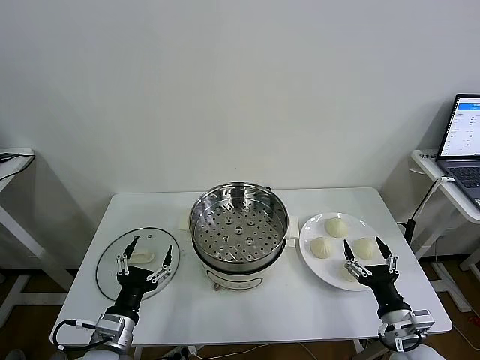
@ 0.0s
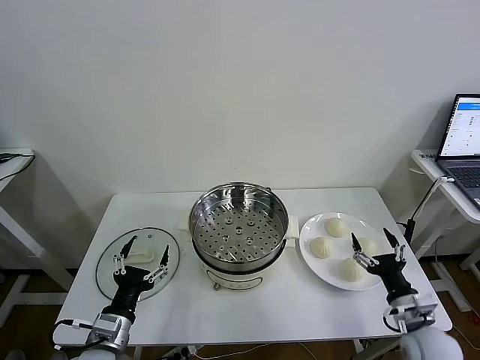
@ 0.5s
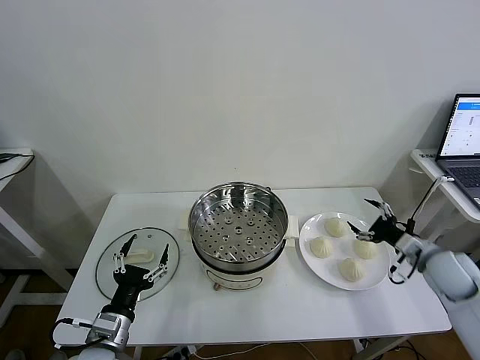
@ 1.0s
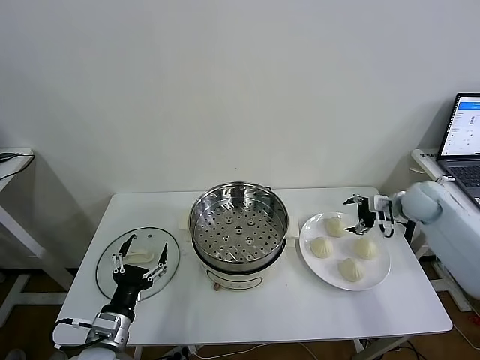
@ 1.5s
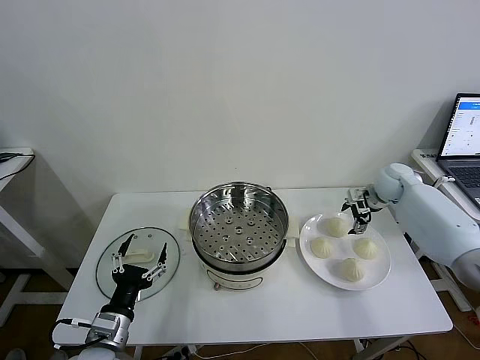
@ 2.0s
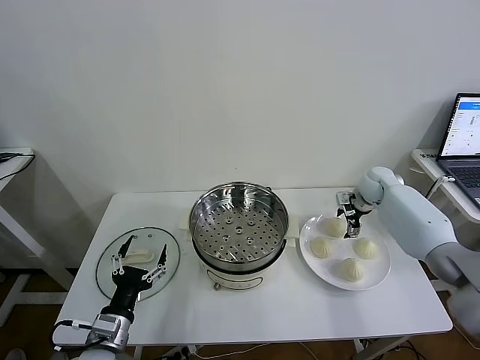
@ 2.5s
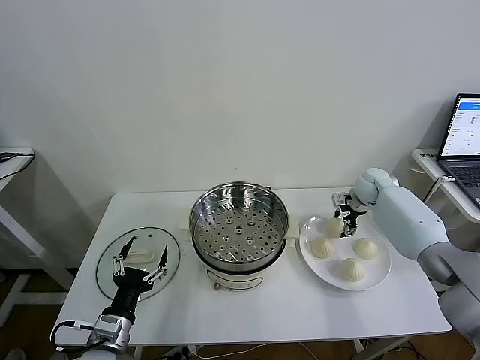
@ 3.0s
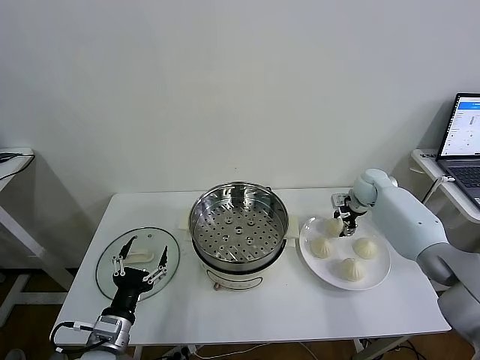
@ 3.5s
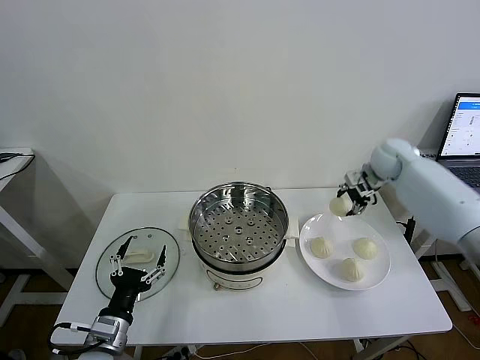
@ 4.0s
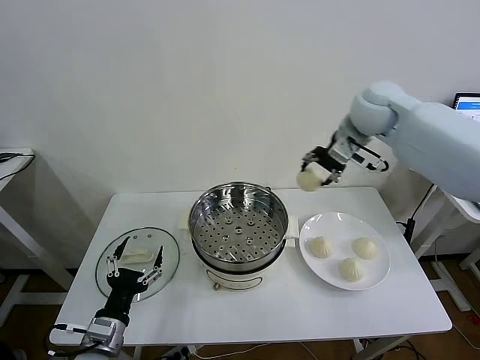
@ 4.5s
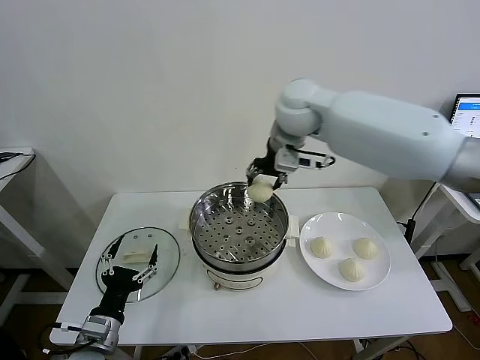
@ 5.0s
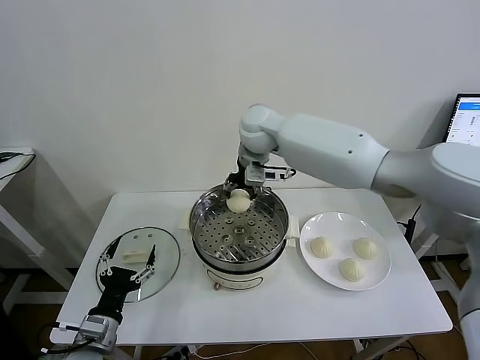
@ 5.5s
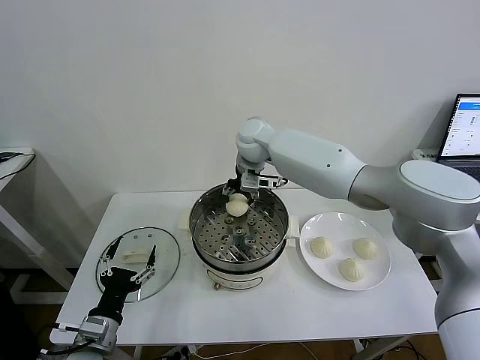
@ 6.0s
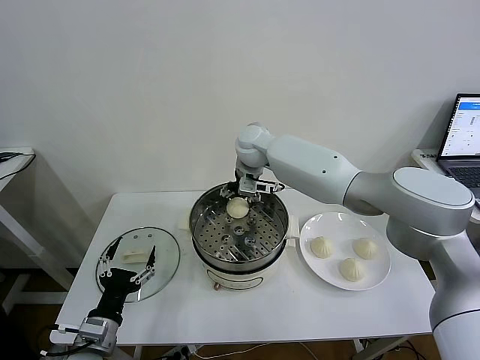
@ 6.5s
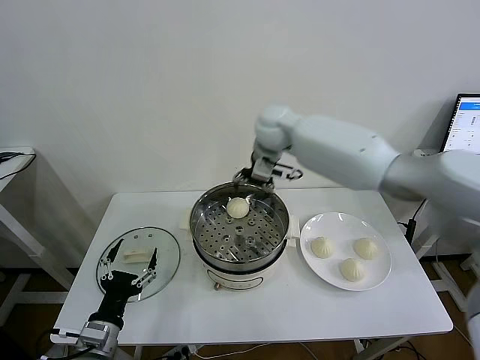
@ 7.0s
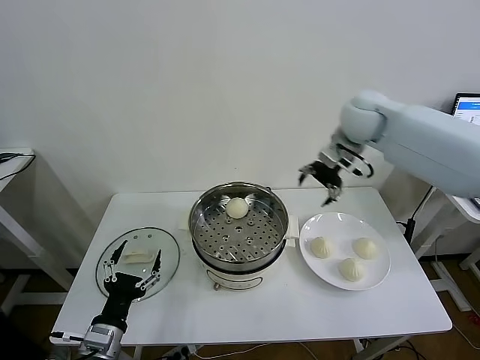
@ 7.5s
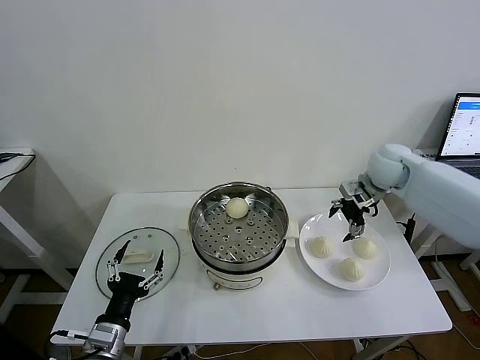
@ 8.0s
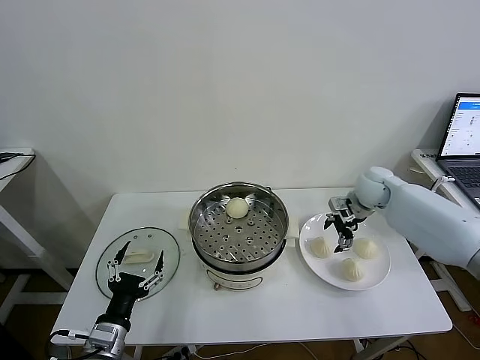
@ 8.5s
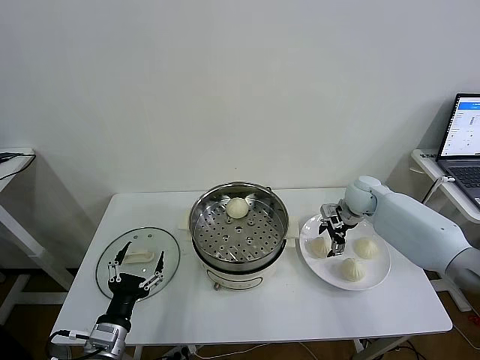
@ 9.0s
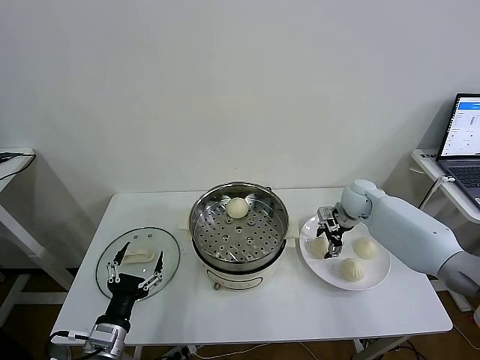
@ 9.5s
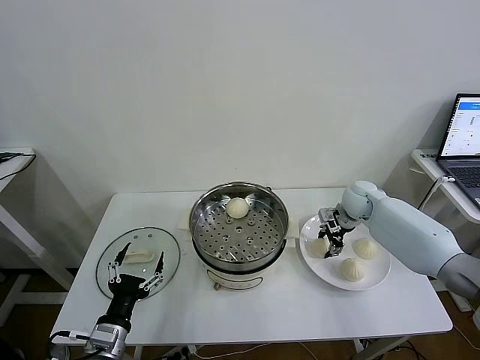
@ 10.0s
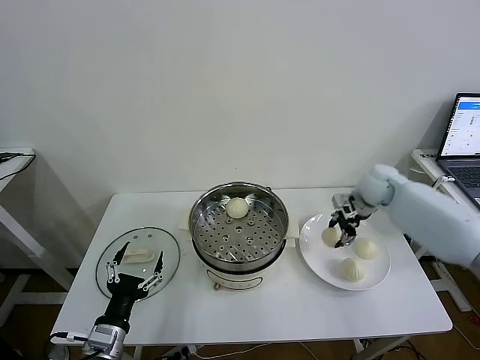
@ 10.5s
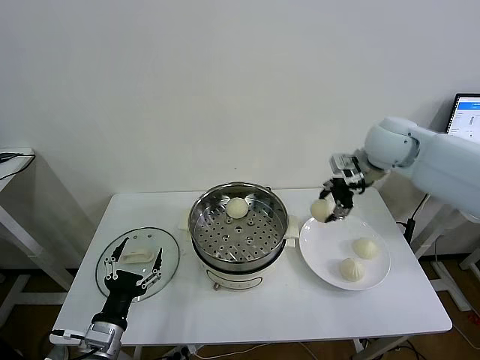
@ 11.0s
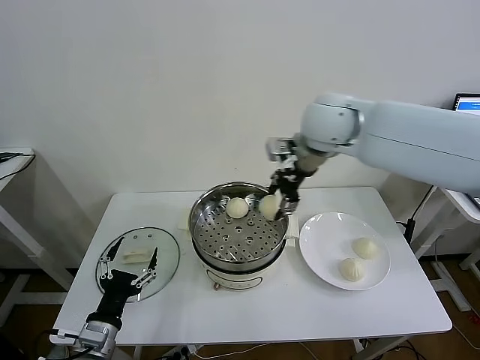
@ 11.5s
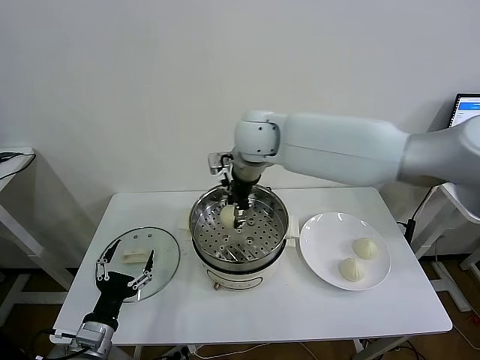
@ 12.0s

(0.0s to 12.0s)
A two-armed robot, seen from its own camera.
Task of the whole recording: take steamed baozi put them in steamer then cover it.
Step, 0.0s - 3.0s: Grasp the baozi in the plate with right gripper.
Step, 3.5s - 6.5s: Place the baozi on the steamer with right gripper.
Step, 7.0s - 9.5s: Grasp the baozi in the plate with right gripper.
2.0s - 4.0s: The right gripper heads upward, covering roughly 10 cm, and closes its fingers.
4.0s - 6.0s: The right gripper goes some 35 cm to the left.
6.0s - 8.0s: The right gripper is displaced to the right by some 30 cm, and opens its fingers.
8.0s - 10.0s: The right gripper shifts about 10 cm downward, and closes.
10.0s - 12.0s: The right gripper is displaced to the left and upward by roughly 35 cm.

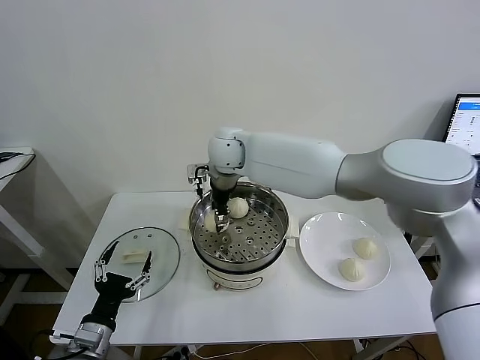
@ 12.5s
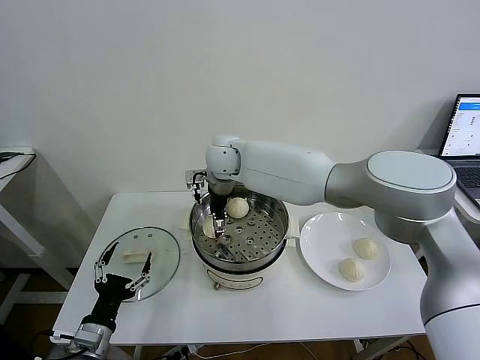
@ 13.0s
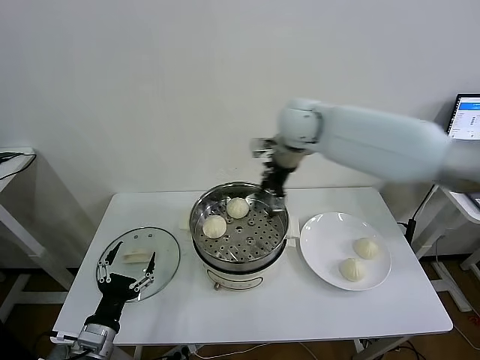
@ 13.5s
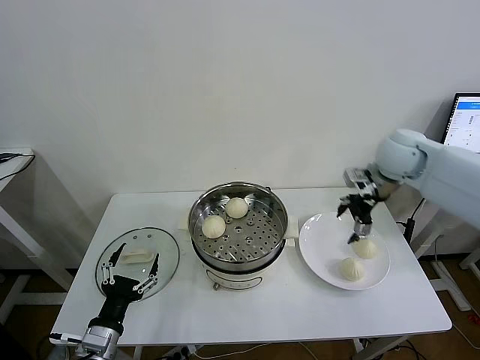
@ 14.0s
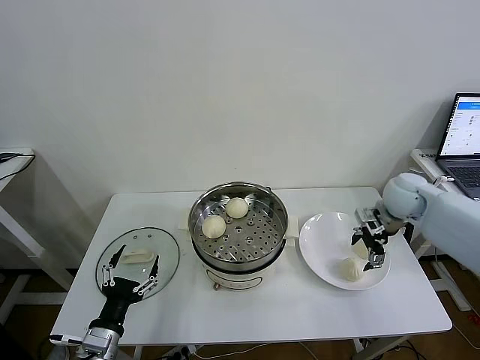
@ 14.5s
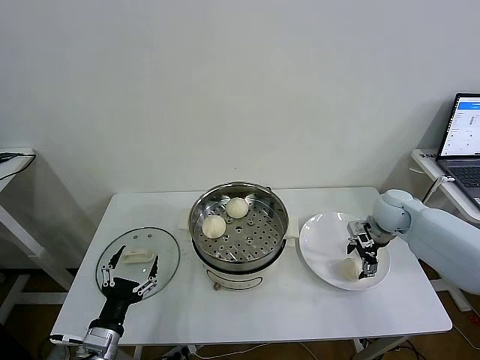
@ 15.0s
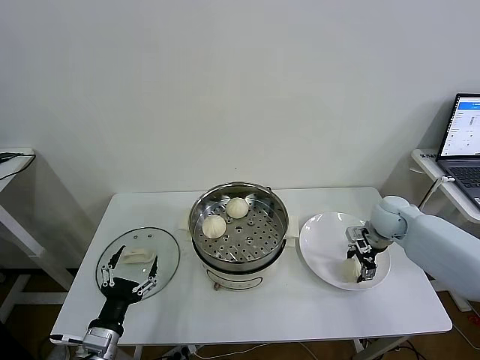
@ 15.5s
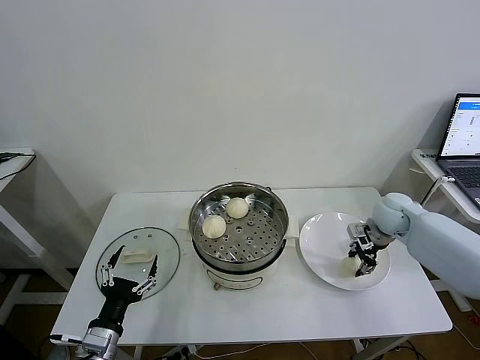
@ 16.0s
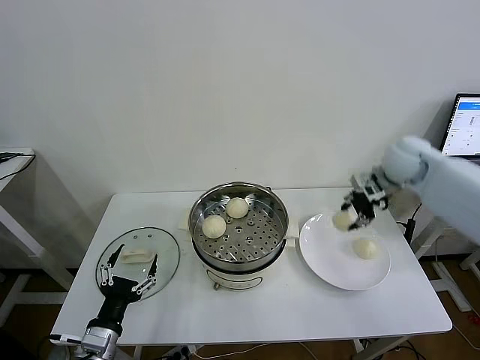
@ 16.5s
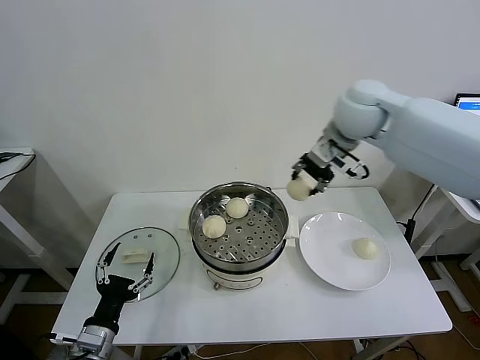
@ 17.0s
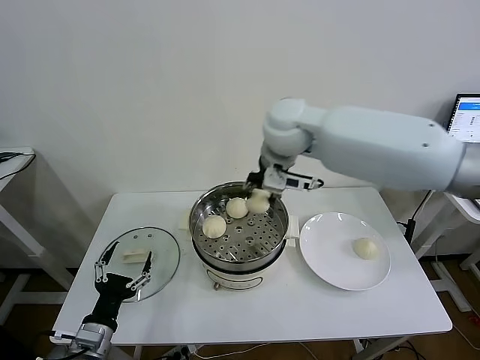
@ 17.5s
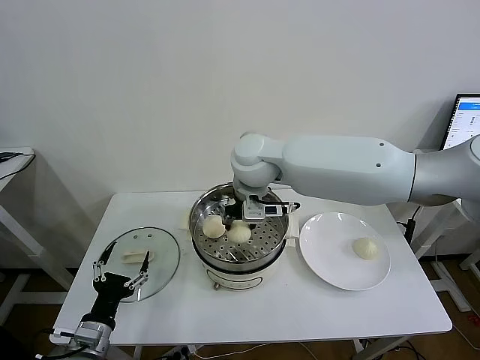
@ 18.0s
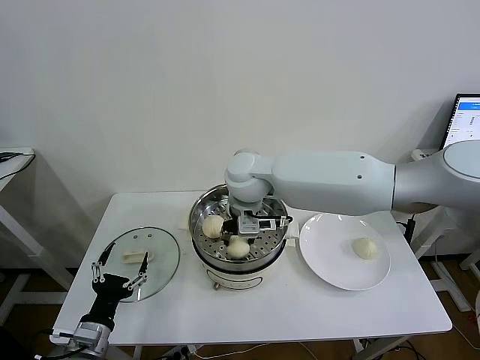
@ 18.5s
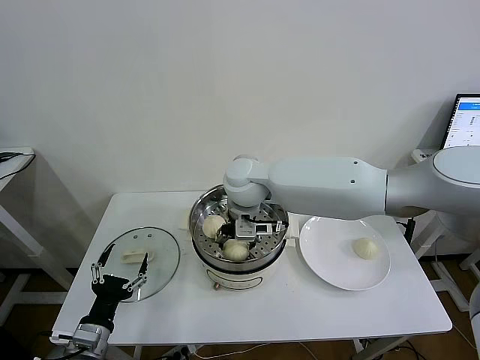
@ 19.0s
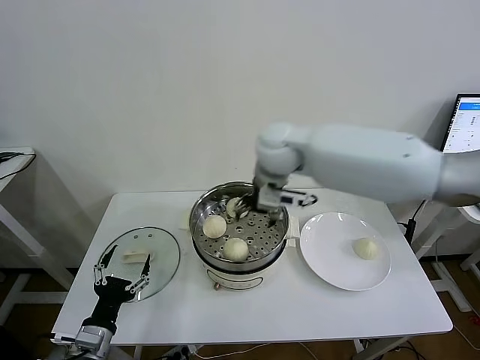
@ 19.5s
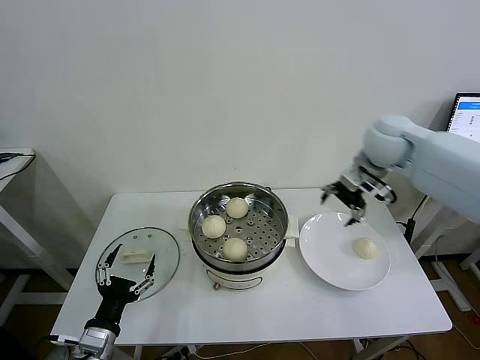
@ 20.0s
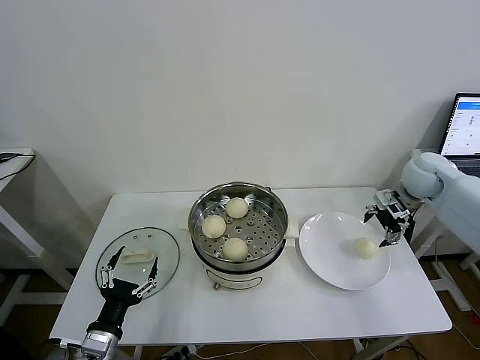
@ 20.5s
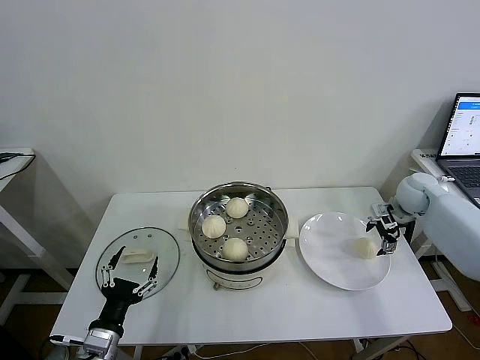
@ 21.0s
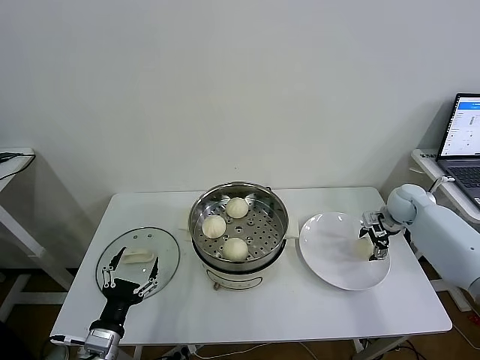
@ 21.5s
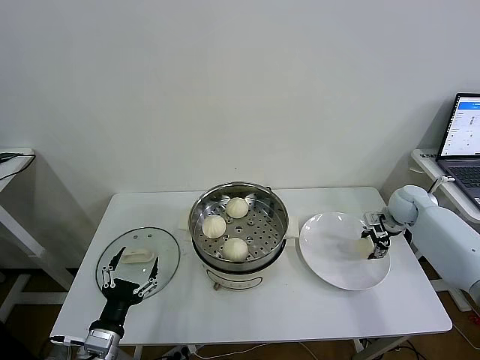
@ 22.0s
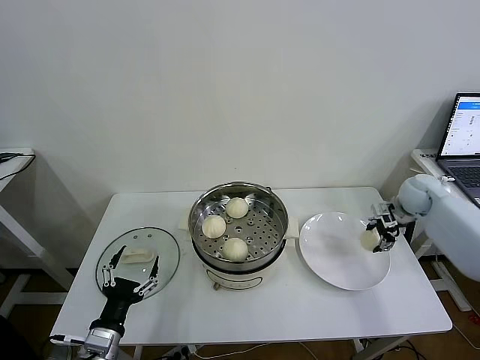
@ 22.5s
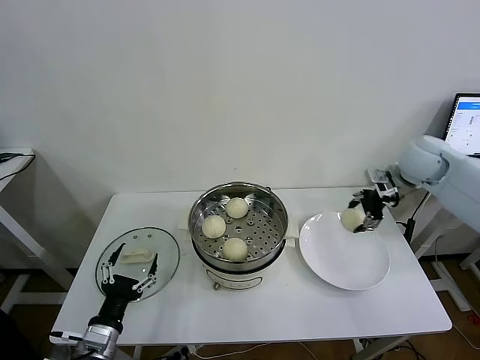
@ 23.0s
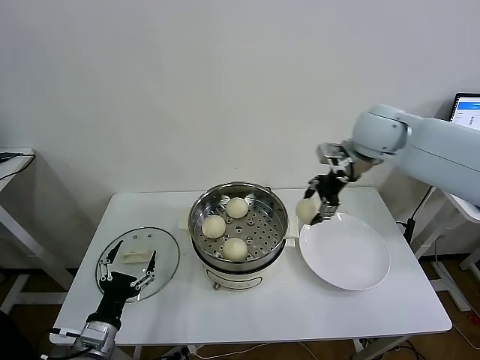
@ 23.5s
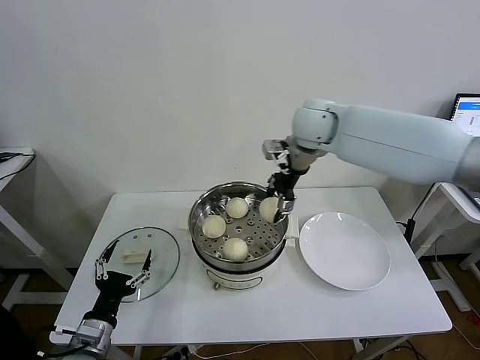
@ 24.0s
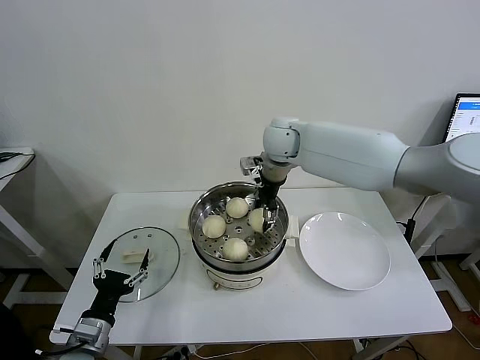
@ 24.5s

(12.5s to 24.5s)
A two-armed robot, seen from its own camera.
Task of the whole recording: take steamed baozi put them in steamer then cover it.
Step, 13.5s - 15.5s: Grasp the baozi in the plate with right gripper.
Step, 16.0s - 19.0s: Place the baozi on the steamer with right gripper.
Step, 19.5s - 21.5s: Grasp the baozi in the plate with right gripper.
12.5s - 14.5s: The right gripper heads to the right, covering roughly 40 cm, and opens its fingers.
14.5s - 16.5s: The right gripper is displaced upward by about 10 cm, and closes.
16.5s - 18.5s: The right gripper shifts about 35 cm to the left.
18.5s - 20.5s: The right gripper goes some 40 cm to the right, and opens its fingers.
20.5s - 22.5s: The right gripper heads downward, covering roughly 5 cm, and closes up.
22.5s - 24.5s: The right gripper heads to the left, covering about 35 cm.

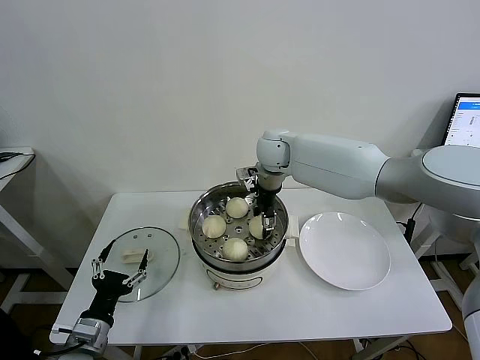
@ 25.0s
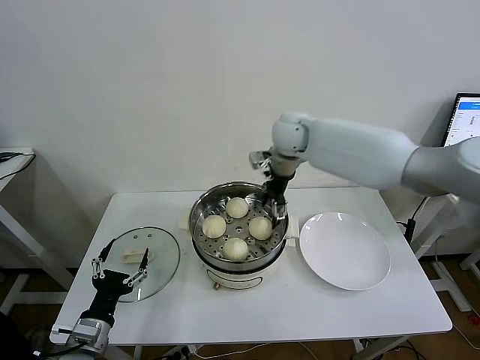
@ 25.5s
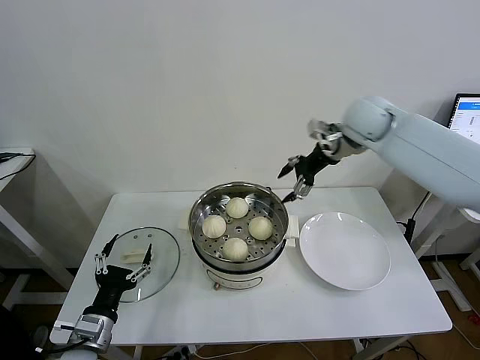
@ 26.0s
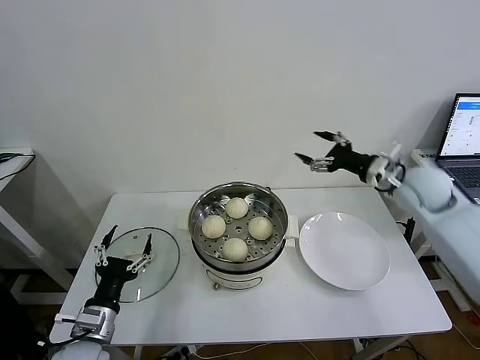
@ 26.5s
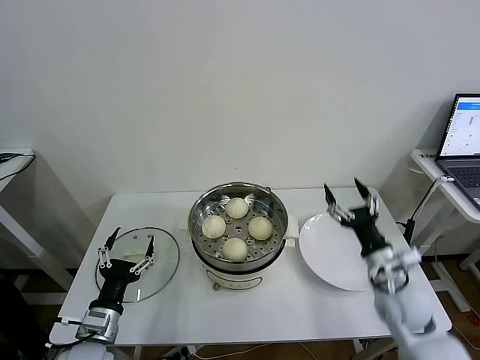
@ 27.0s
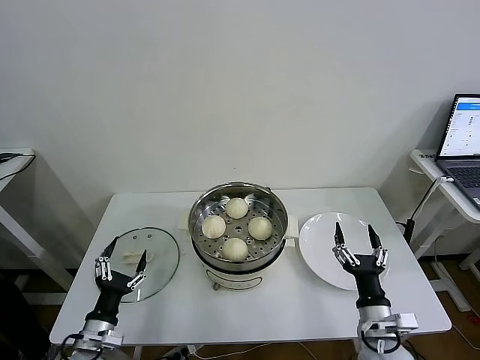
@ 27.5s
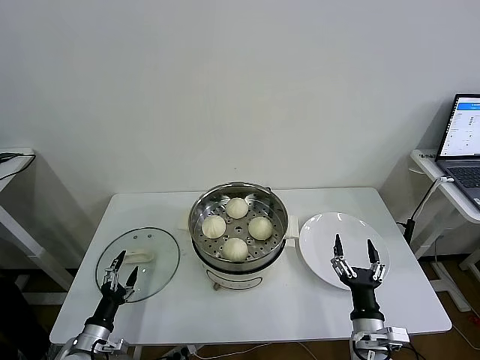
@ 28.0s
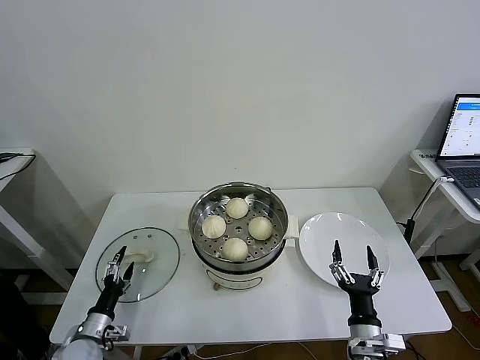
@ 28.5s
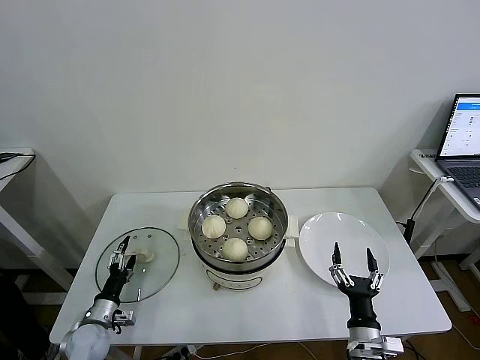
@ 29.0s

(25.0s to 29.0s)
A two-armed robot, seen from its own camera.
Task of the whole recording: take steamed baozi put them in steamer then cover it.
25.0s - 27.0s: The right gripper is displaced backward, to the right and downward by approximately 40 cm, and opens up.
27.0s - 29.0s: The right gripper shifts about 15 cm backward, downward and to the left. Meanwhile the left gripper goes about 20 cm downward, to the left and forward.
